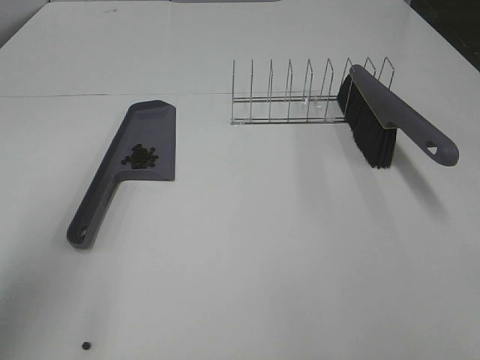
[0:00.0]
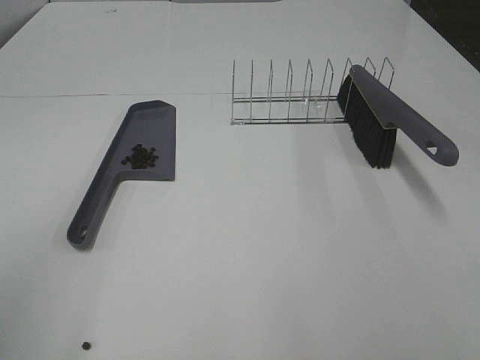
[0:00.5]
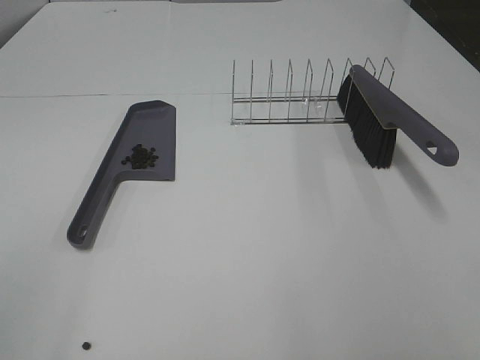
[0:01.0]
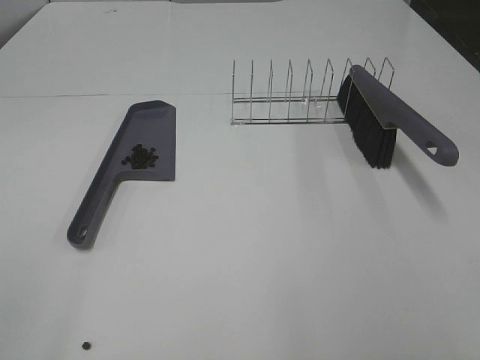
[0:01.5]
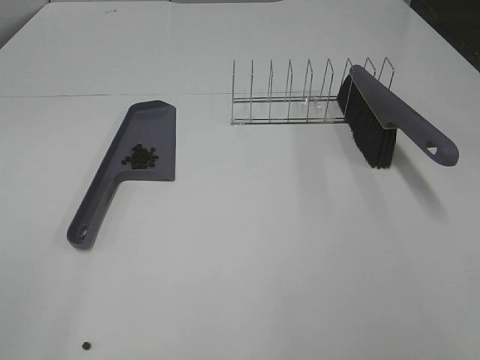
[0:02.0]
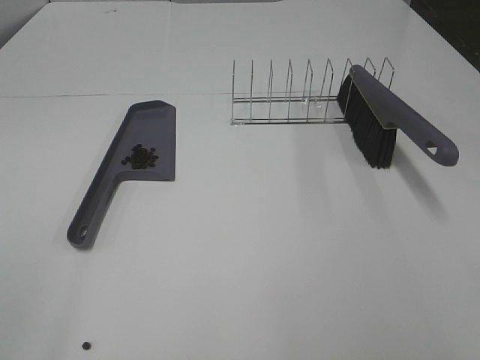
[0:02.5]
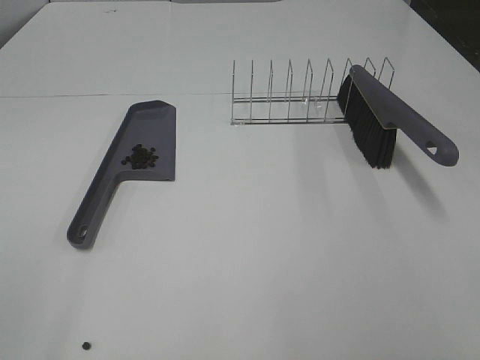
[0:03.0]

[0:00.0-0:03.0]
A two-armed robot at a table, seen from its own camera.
Task of the whole recording: Sweep Coffee Bean.
0:00.0 to 0:01.5: The left gripper heads backward, covering roughly 15 cm.
0:01.5 to 0:03.0: Both grippers stay about where they are.

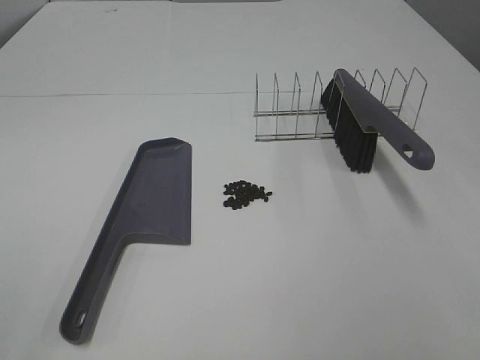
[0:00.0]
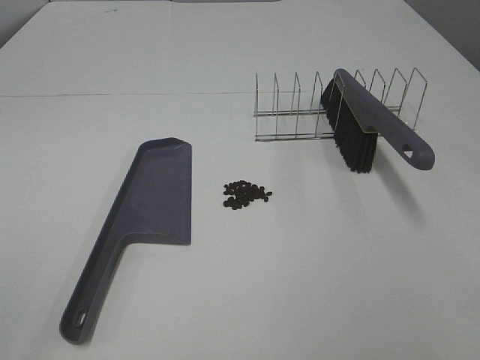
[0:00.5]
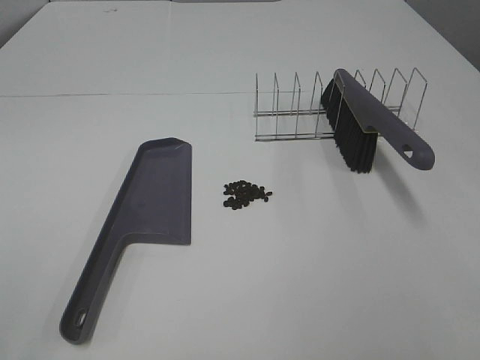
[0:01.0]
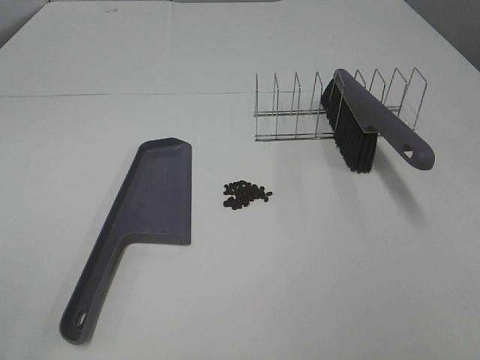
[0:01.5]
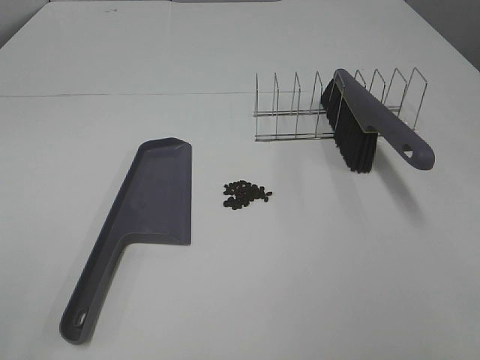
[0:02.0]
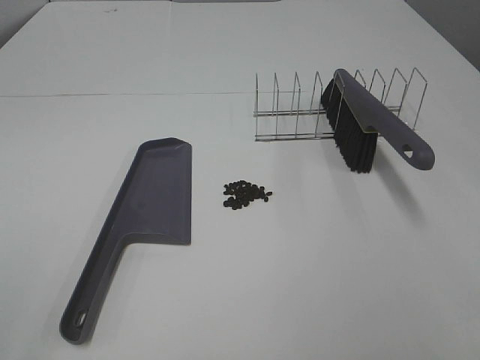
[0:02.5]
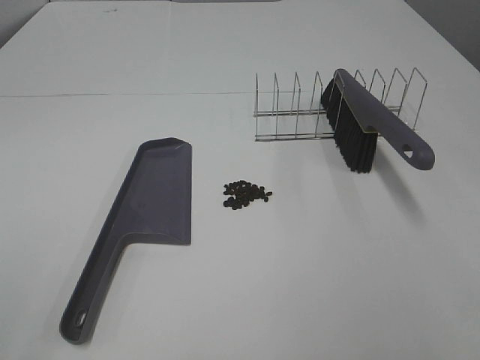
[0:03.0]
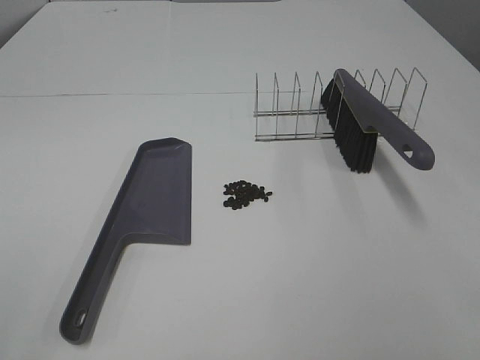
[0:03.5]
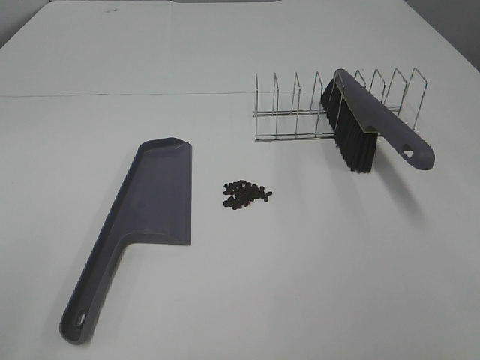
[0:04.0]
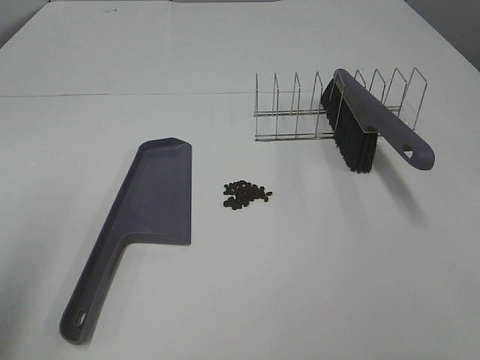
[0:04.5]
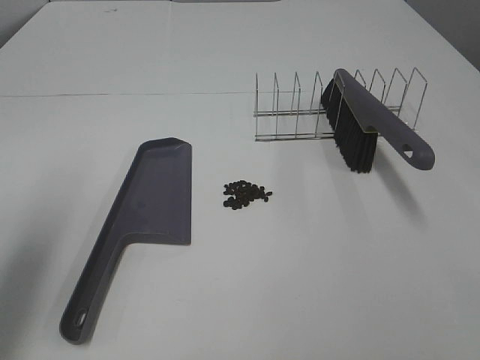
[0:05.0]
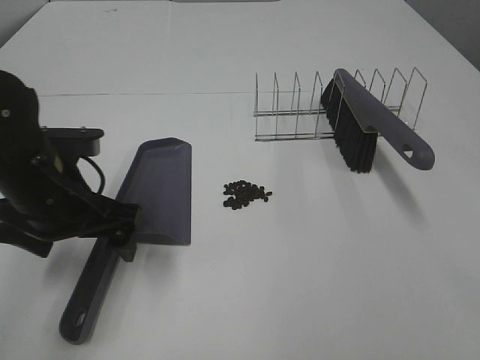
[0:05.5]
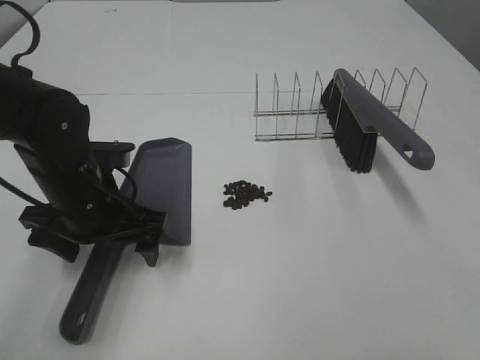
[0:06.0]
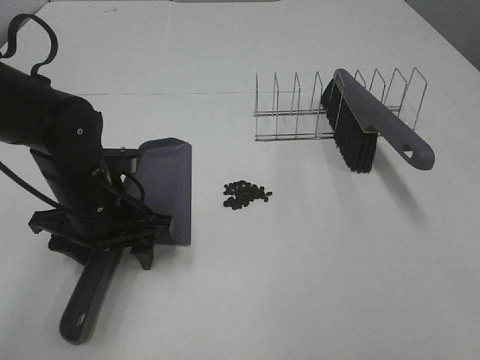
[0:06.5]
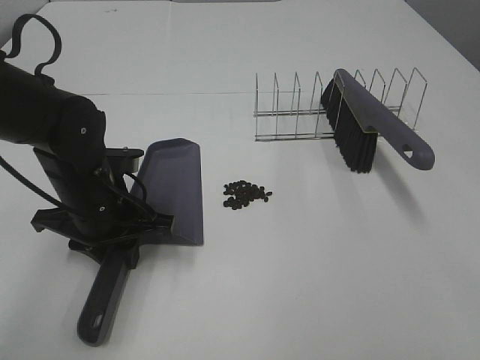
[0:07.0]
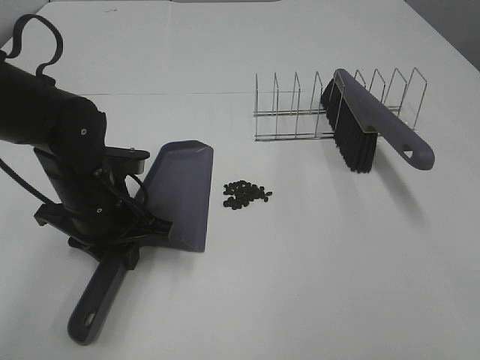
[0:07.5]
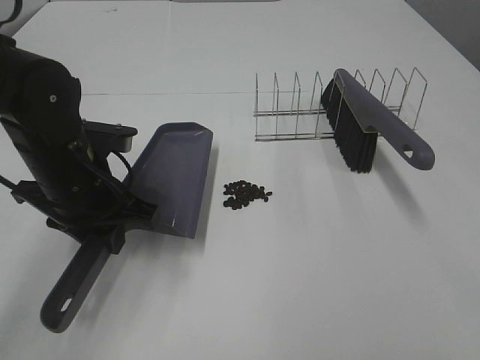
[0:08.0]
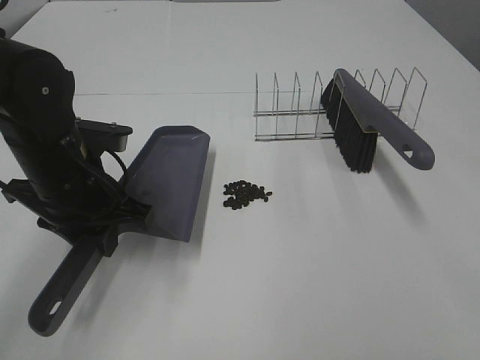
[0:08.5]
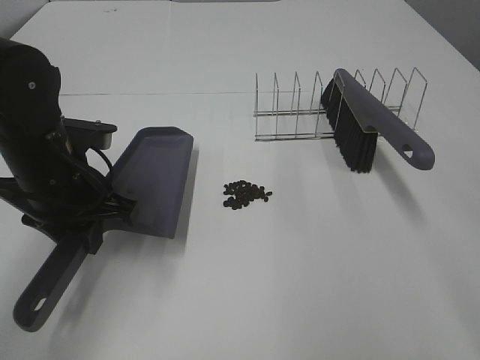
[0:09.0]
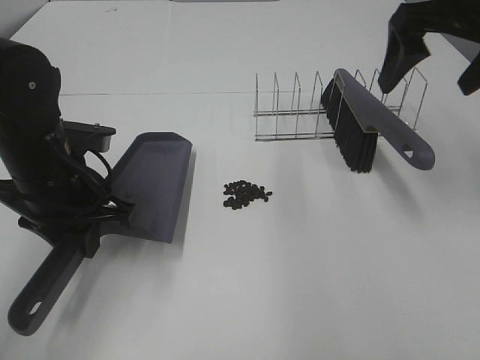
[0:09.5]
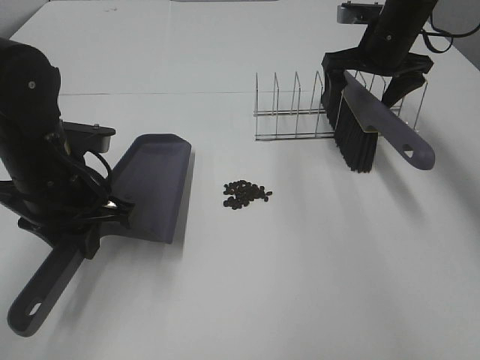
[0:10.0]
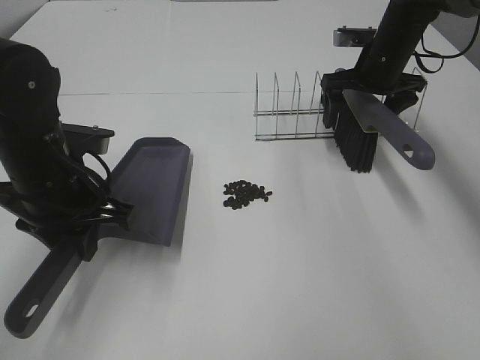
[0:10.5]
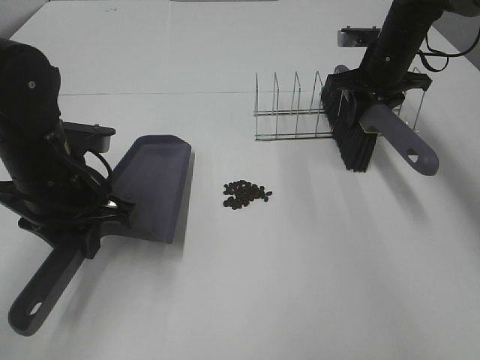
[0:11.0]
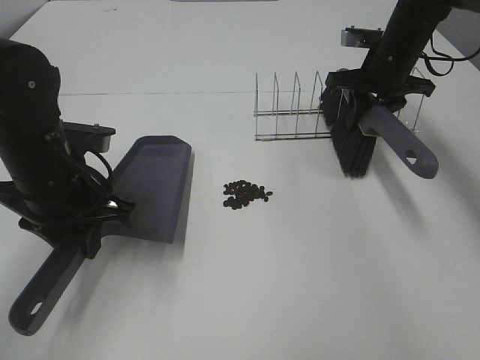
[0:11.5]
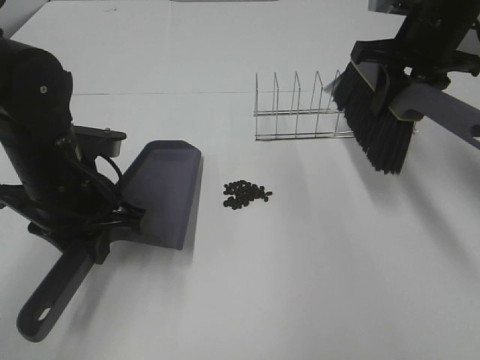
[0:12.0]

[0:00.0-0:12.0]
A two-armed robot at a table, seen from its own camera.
Task of the whole recording: Sweep Coffee Bean.
Step, 0:00.0 to 0:06.5: Left hand: grab the dustpan.
Step, 0:08.5 to 0:10.5: Right hand:grab the broom.
0:00.0 to 0:02.0: Both grippers stay put.
0:04.0 to 0:06.0: The left gripper heads forward, downward and to the right, covering approximately 35 cm.
0:06.0 to 0:08.0: The left gripper closes up.
0:08.0 to 0:10.0: The right gripper moves forward, roughly 50 cm.
0:10.0 to 0:12.0: The right gripper heads backward and upward, covering about 10 cm, and closes.

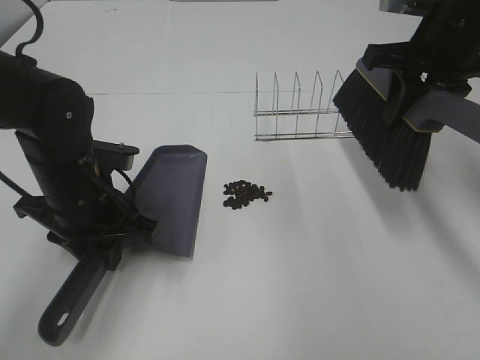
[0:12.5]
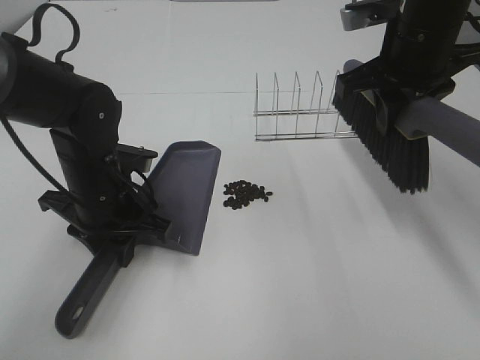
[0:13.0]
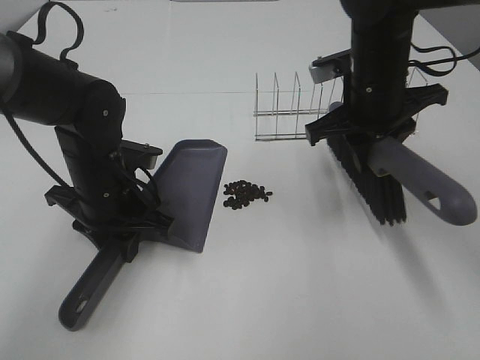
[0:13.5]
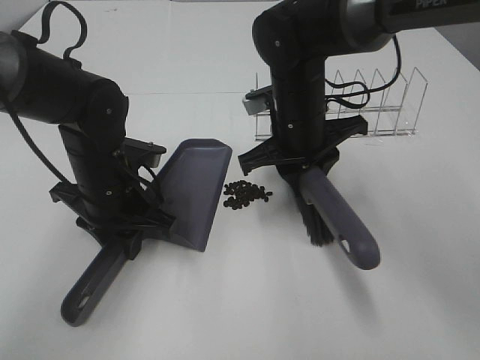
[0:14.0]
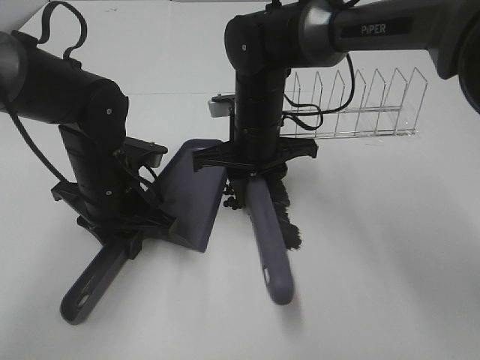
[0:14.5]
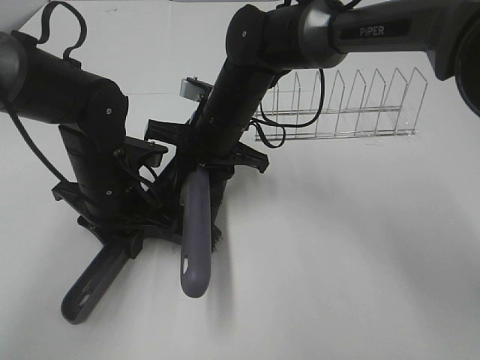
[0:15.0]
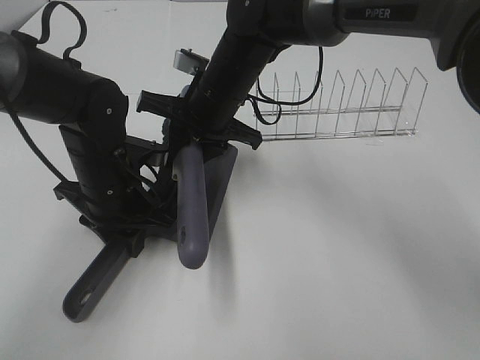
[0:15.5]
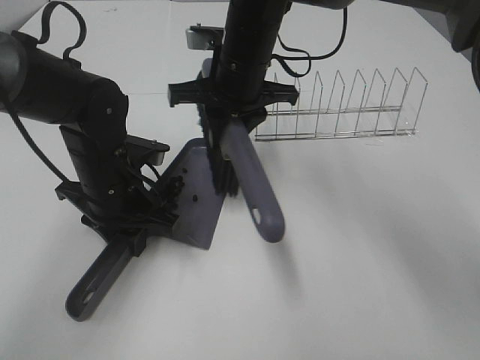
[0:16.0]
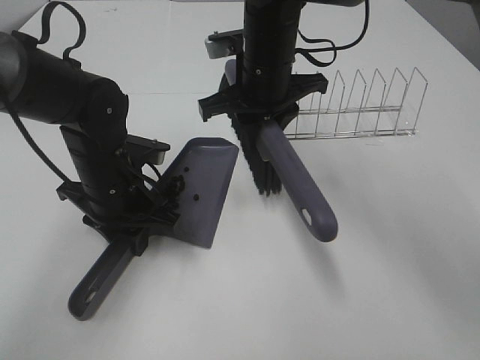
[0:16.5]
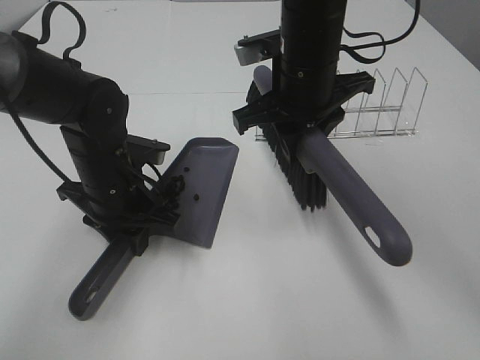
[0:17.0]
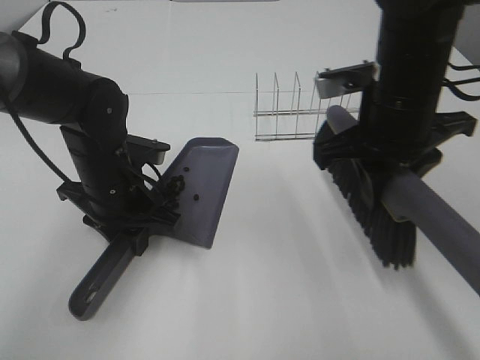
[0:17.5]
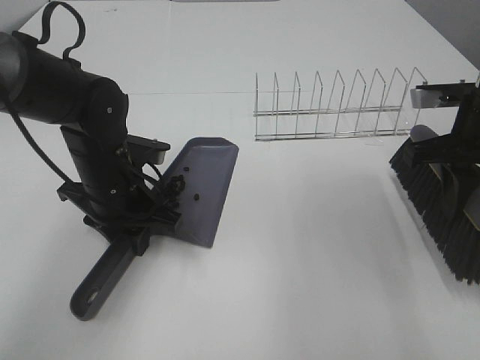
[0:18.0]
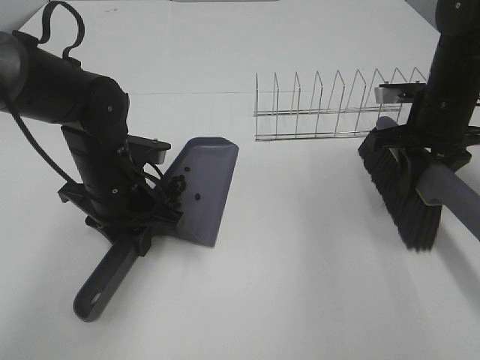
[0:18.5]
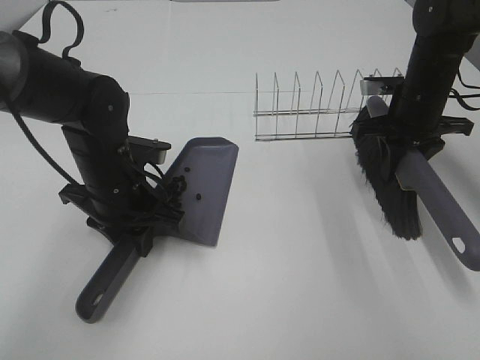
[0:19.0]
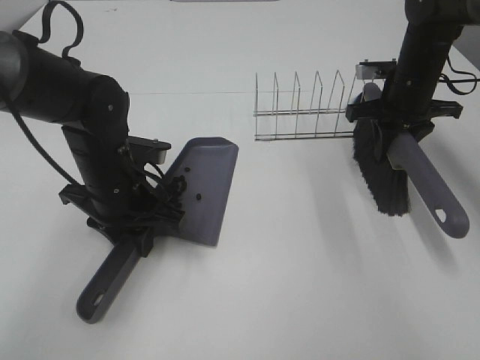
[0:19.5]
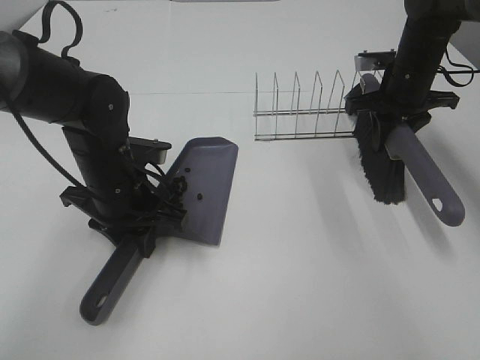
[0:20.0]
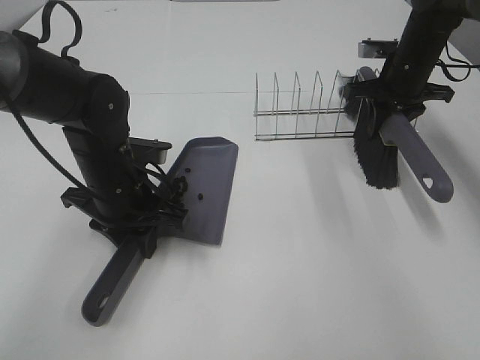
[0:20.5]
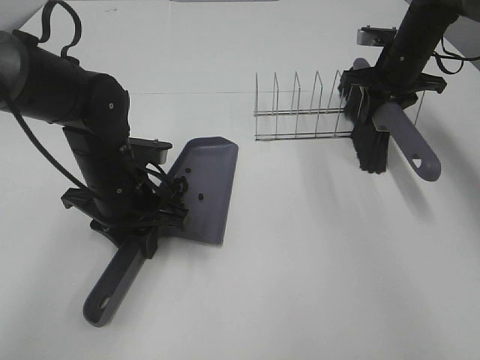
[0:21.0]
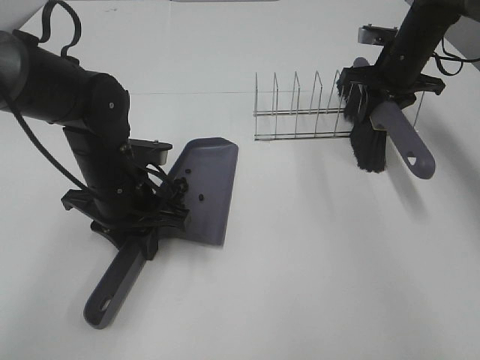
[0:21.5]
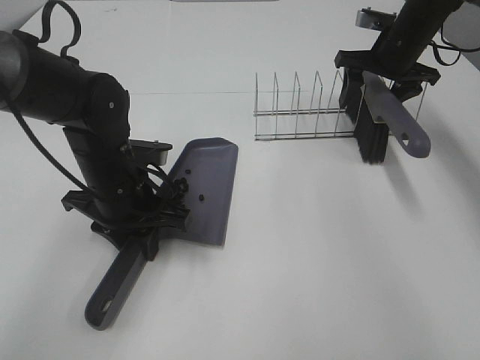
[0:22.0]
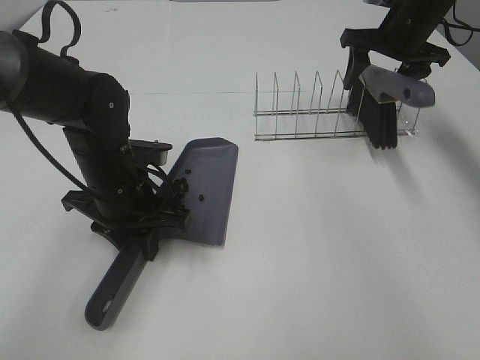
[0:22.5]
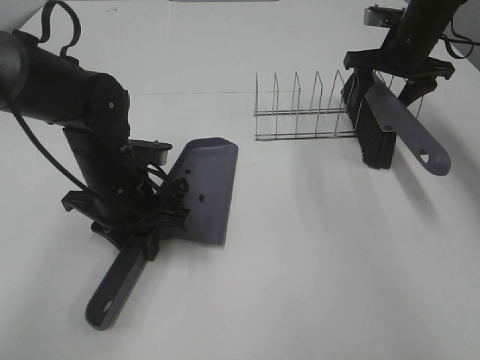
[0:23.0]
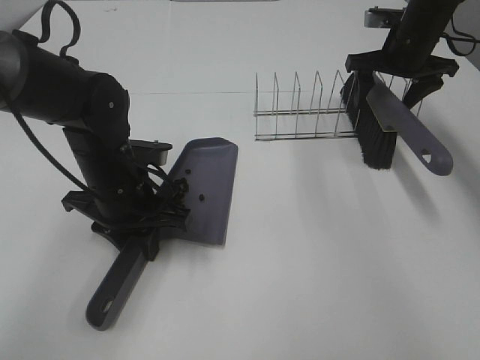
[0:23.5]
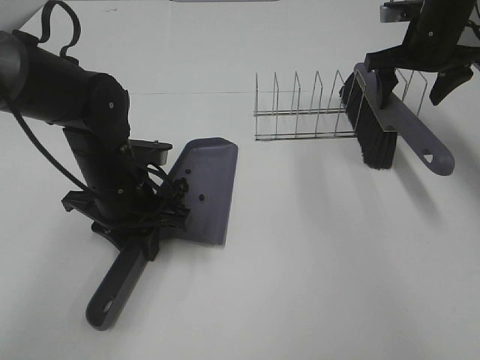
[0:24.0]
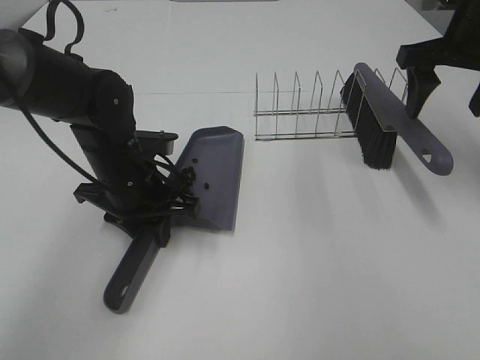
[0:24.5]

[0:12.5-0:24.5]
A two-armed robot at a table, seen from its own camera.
Task of the whole recording: Sweep Coffee Bean.
Step, 0:12.5 to 0:15.5: Right hand:sweep the coffee beans into the dustpan.
Step, 0:16.0 to 0:22.5: Right hand:place the broom on the rack.
0:12.5 to 0:14.5: The right gripper travels to the left and downward by some 25 cm.
0:14.5 to 0:16.5: The right gripper is displaced upward by roughly 5 cm.
0:16.5 to 0:18.5: The right gripper heads to the right, covering roughly 20 cm.
0:18.5 to 0:20.5: The right gripper heads forward, covering roughly 10 cm.
0:20.5 to 0:22.5: The right gripper goes approximately 5 cm upward, and opens its fingers.
0:22.5 to 0:24.5: The right gripper shifts approximately 15 cm backward and upward.
